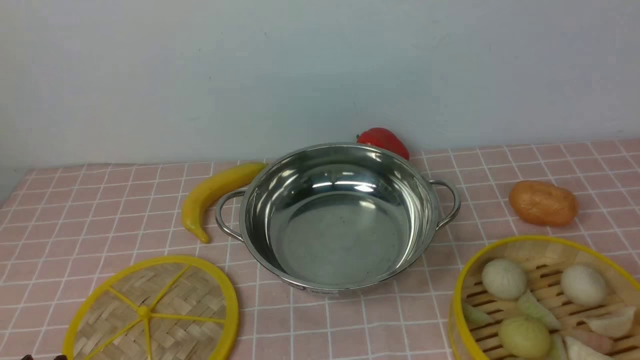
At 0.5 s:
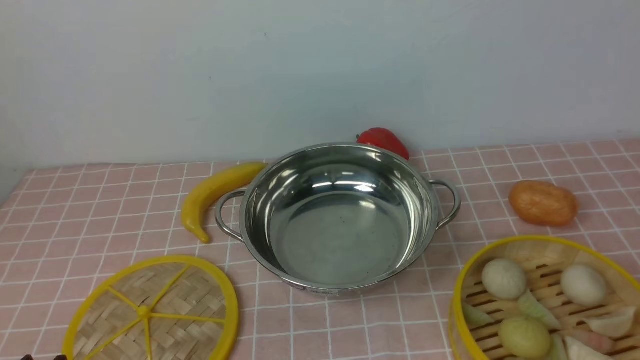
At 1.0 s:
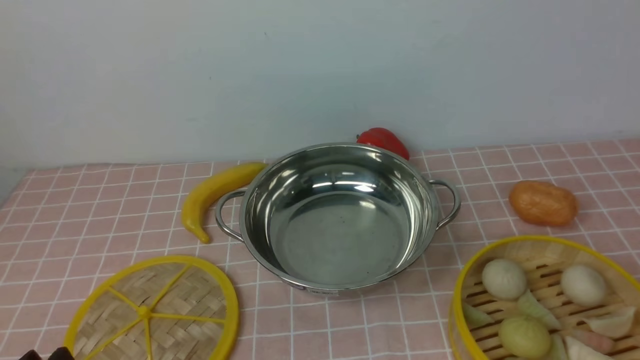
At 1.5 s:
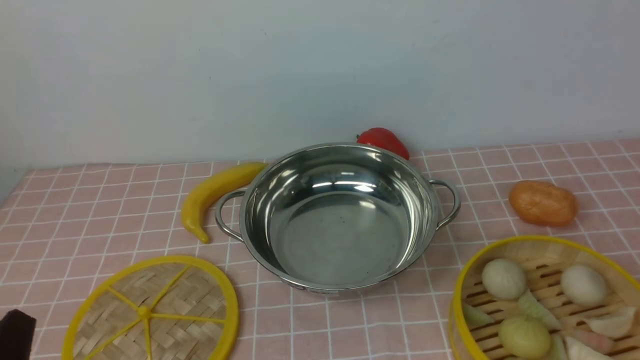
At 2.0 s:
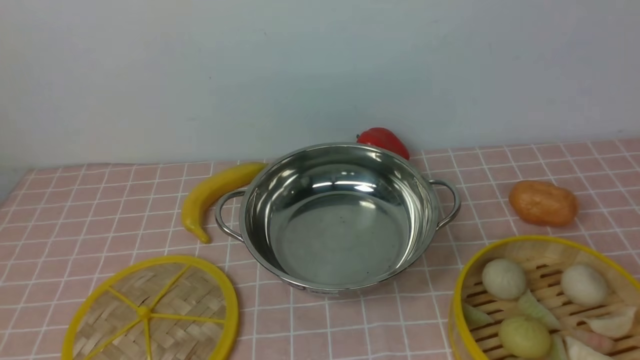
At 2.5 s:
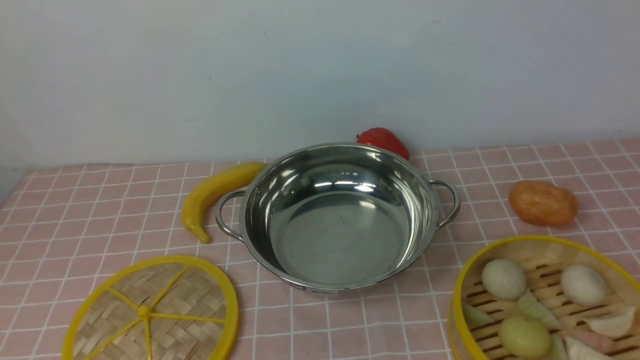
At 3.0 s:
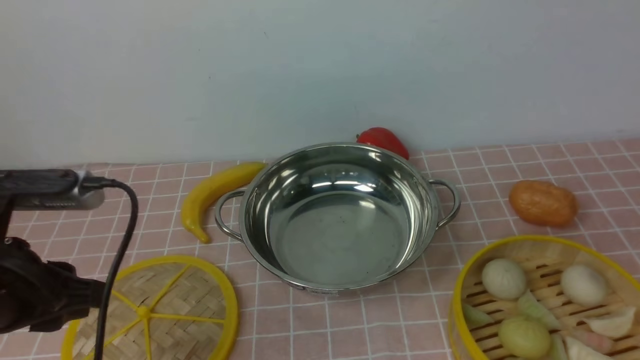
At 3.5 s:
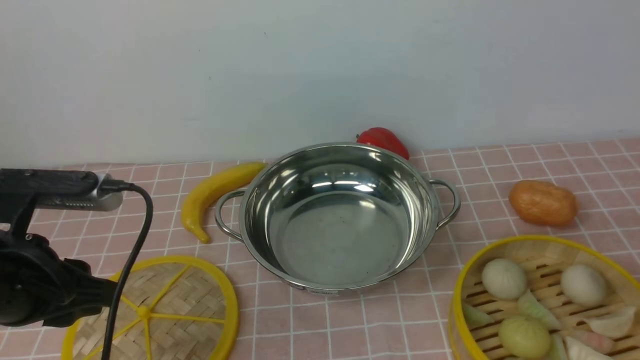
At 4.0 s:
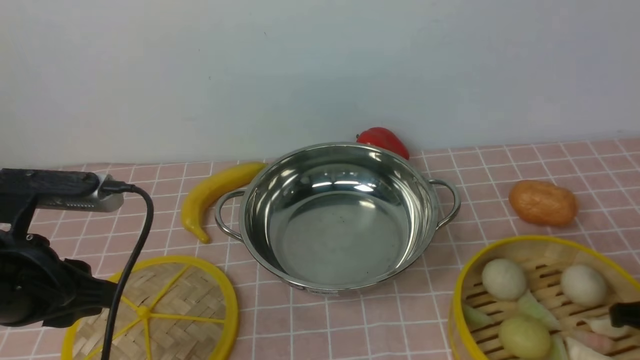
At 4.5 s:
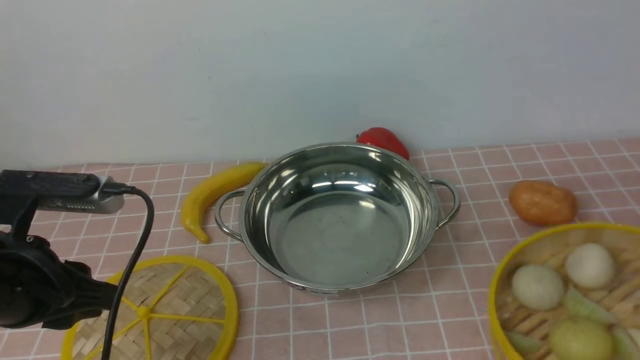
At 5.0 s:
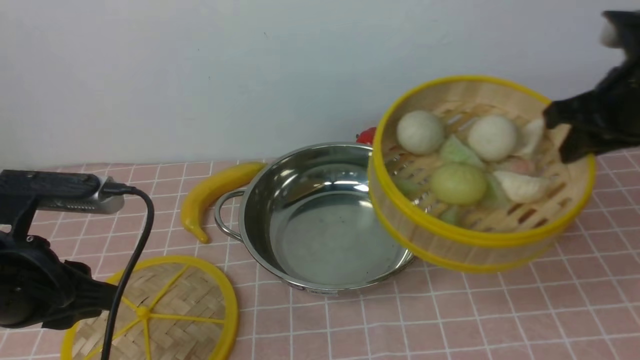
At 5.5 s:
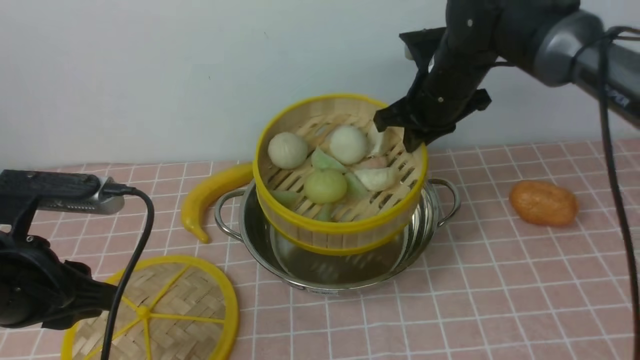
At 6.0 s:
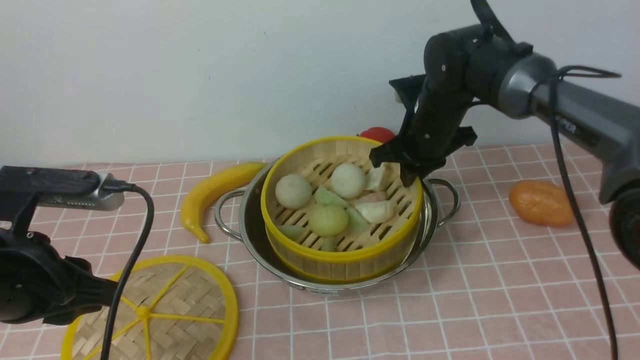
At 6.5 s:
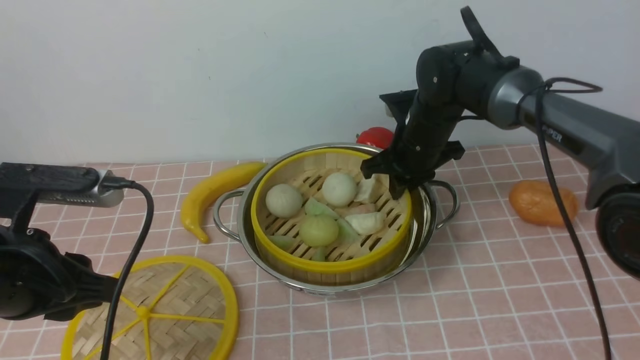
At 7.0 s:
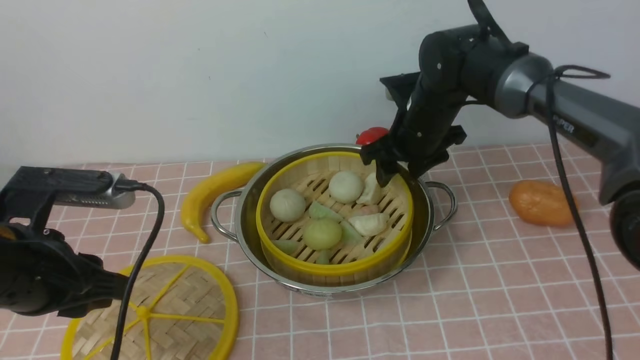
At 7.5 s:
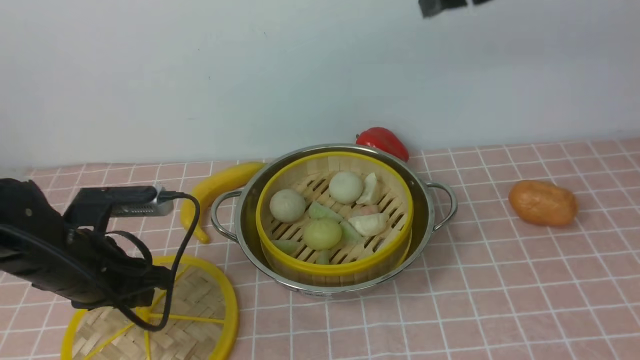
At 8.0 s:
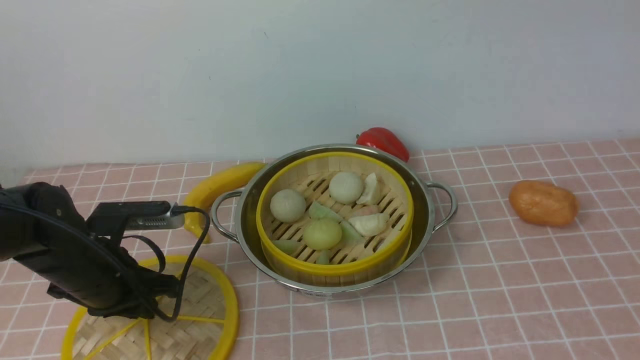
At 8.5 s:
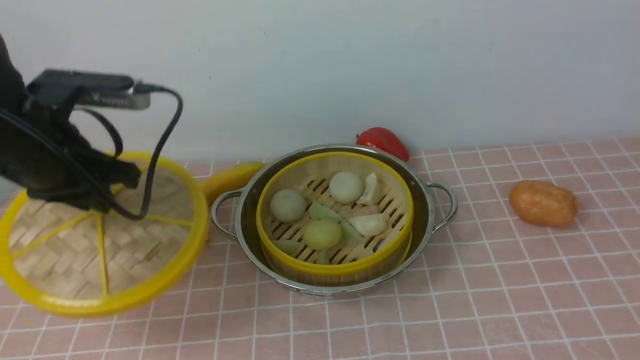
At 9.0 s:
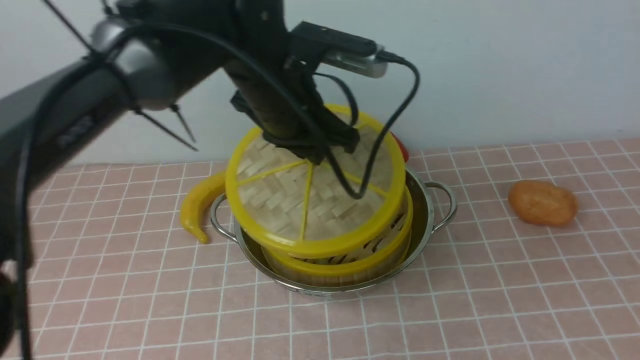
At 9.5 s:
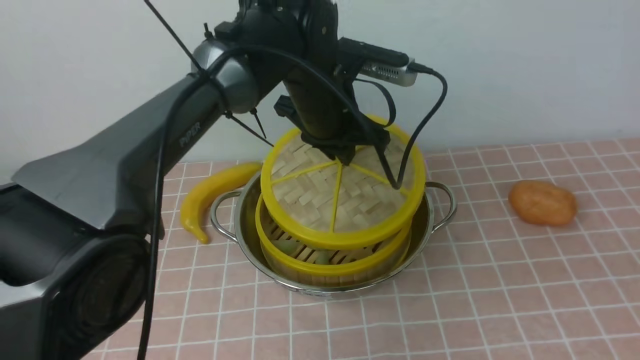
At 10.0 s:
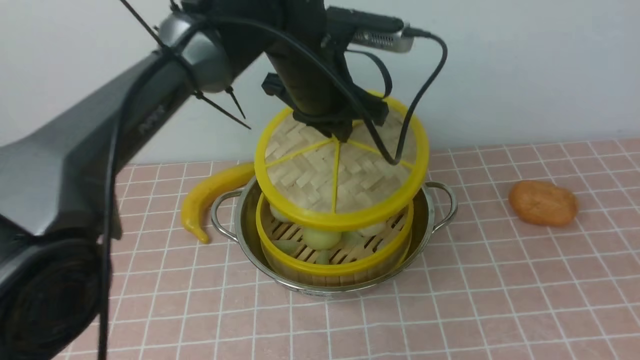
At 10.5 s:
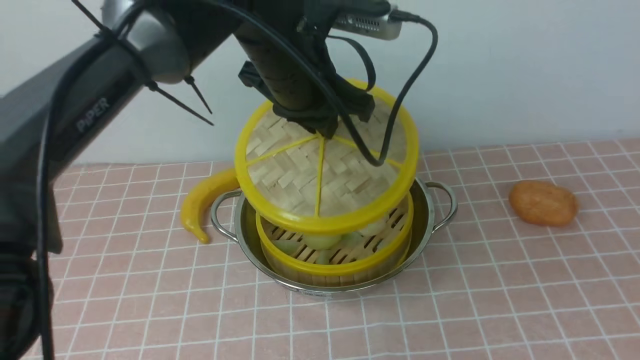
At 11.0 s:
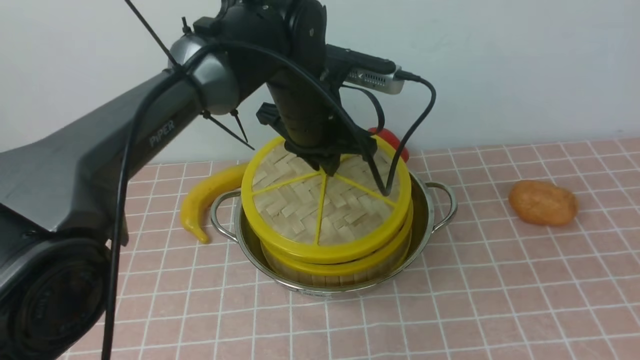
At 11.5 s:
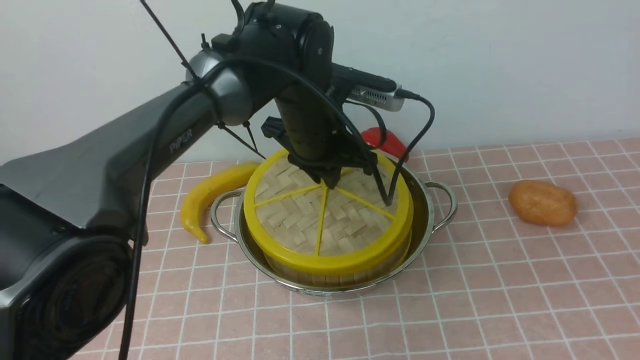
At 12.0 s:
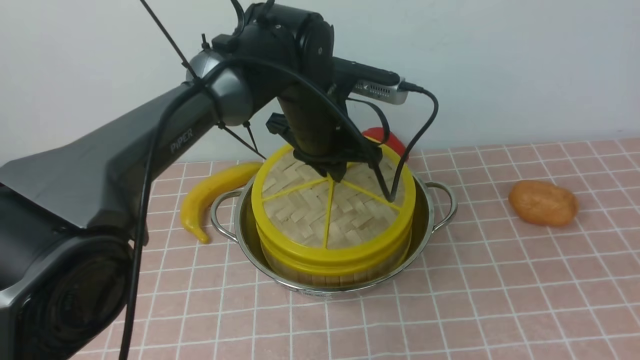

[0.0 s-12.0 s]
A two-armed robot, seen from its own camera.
Task of the whole recording: place the steamer in the pot on the pink tablecloth, and put the lid on the steamer.
Step, 0.0 to 4.0 s: use the right arm to lift the steamer closest to it.
Step, 4.5 to 7.0 s: use the right arm to put the steamer into the iron steamer pot in the middle.
Step, 7.5 to 8.0 s: use the left arm to lift the lid of the steamer.
2.0 to 4.0 s: The left gripper goes approximately 15 cm forward.
4.0 to 6.0 s: The right gripper goes about 30 cm forward and to the left.
6.0 to 8.0 s: The right gripper shifts approximately 40 cm upward and backward, and opens its fingers; the left gripper goes about 15 cm downward and forward.
8.0 to 10.0 s: The left gripper travels to the right, upward and forward by about 30 cm; the right gripper shifts some 30 cm downward, backward and to the right.
10.0 to 12.0 s: The left gripper heads downward, covering about 5 cm.

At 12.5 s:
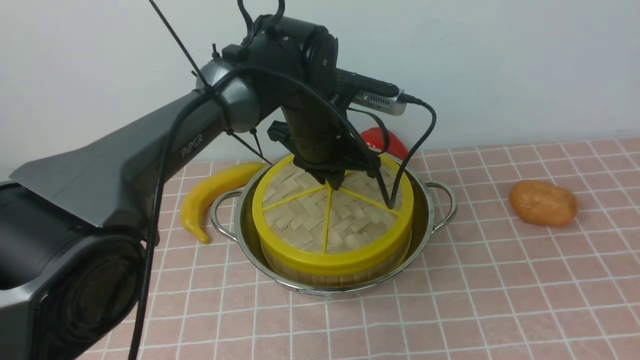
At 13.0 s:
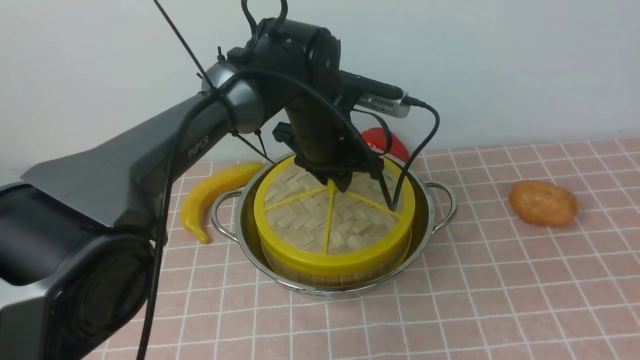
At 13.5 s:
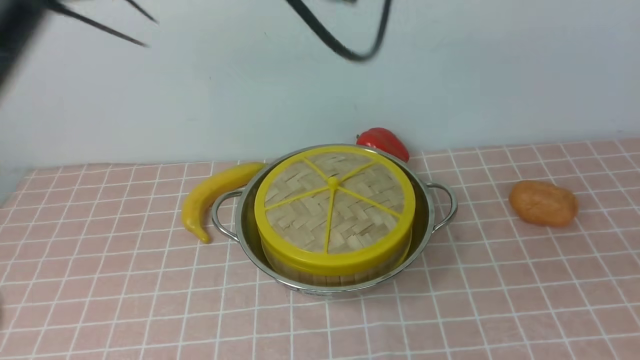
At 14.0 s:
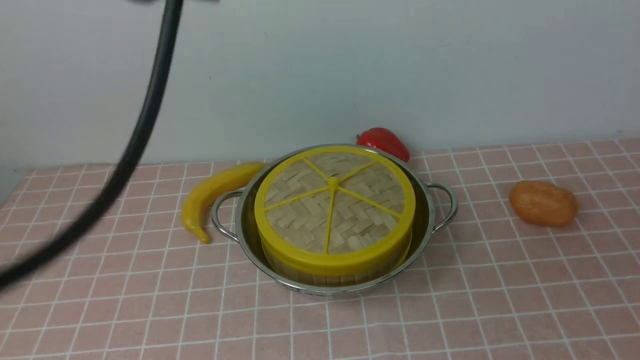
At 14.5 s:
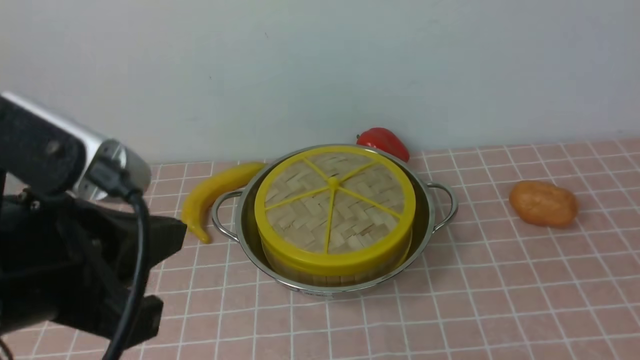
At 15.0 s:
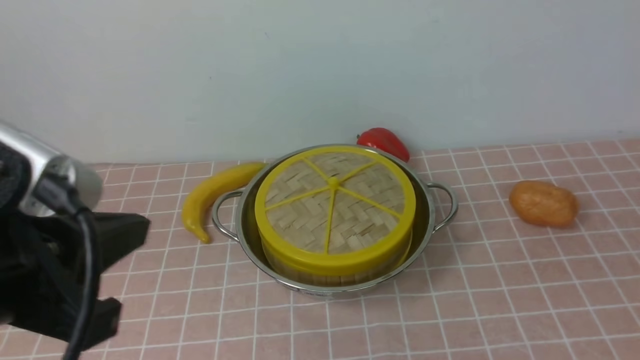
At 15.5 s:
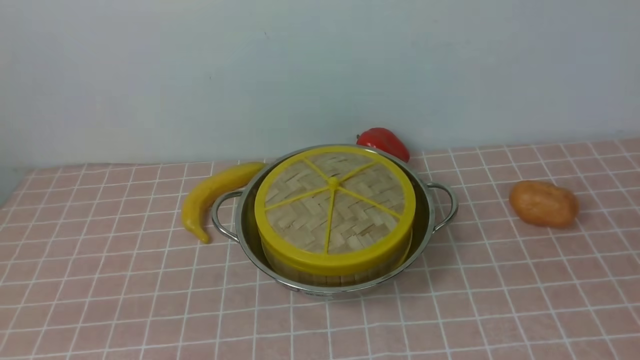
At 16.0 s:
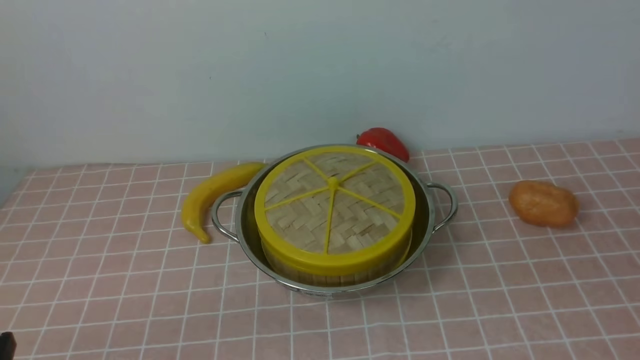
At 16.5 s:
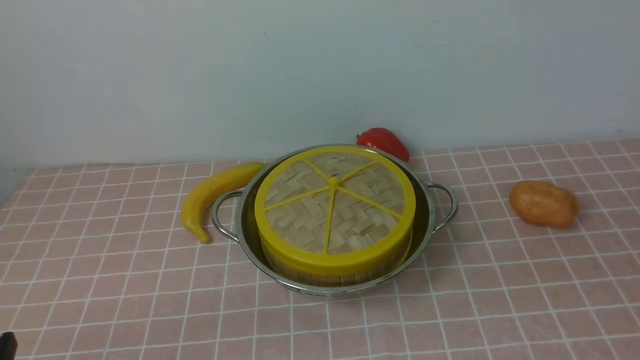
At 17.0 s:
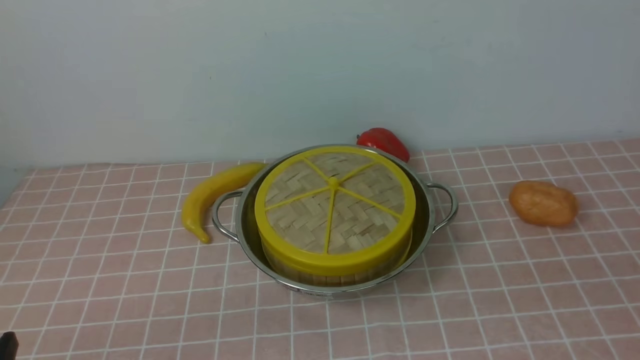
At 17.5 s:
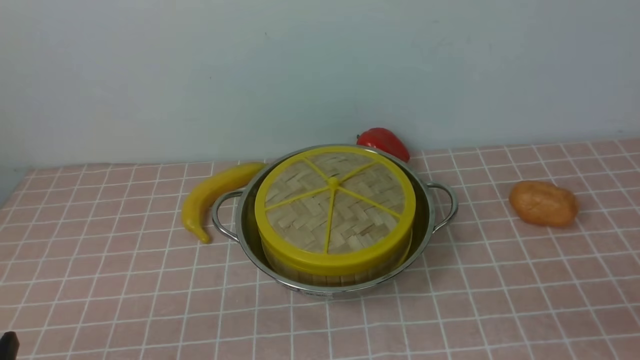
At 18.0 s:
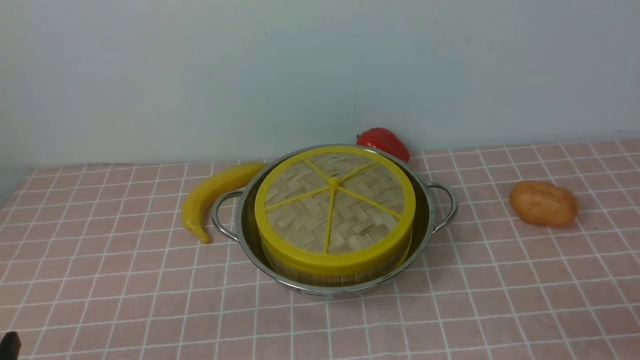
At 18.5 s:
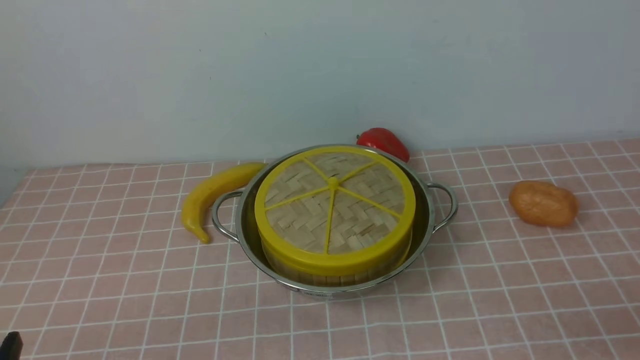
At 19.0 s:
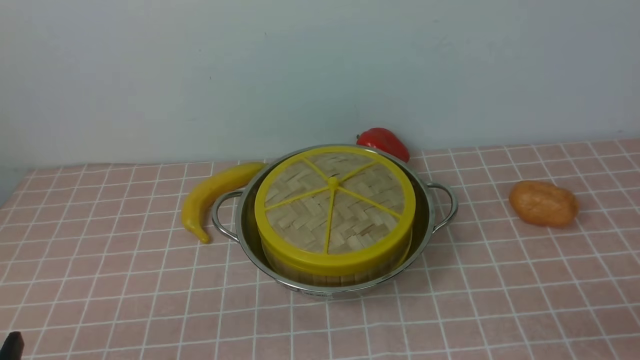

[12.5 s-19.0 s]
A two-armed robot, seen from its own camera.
Task of the whole recording: place the steamer in the pot on the pink tablecloth, and put the lid on the steamer.
12.5 to 14.5 s: The left gripper heads backward, to the left and upward, covering approximately 35 cm, and opens and closes again; the right gripper closes up.
14.5 to 17.0 s: The left gripper shifts approximately 25 cm downward, to the left and backward.

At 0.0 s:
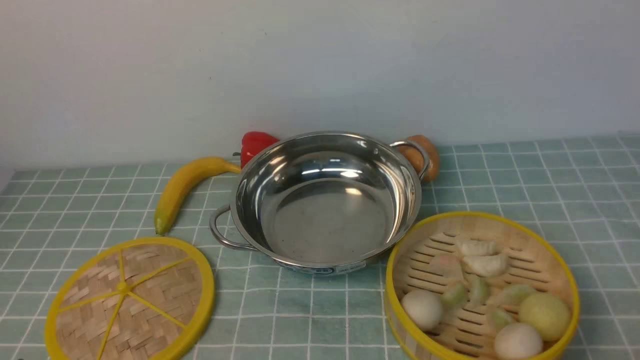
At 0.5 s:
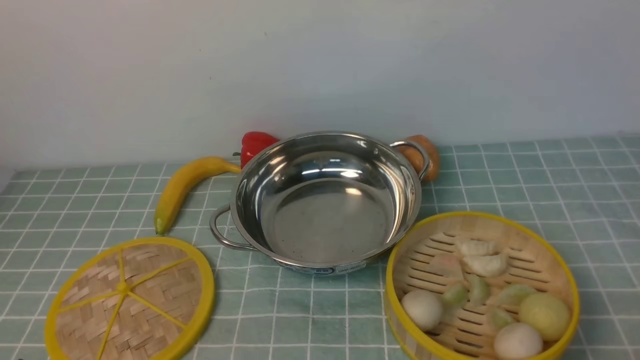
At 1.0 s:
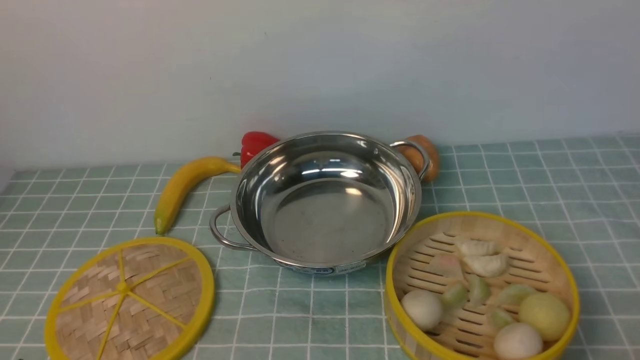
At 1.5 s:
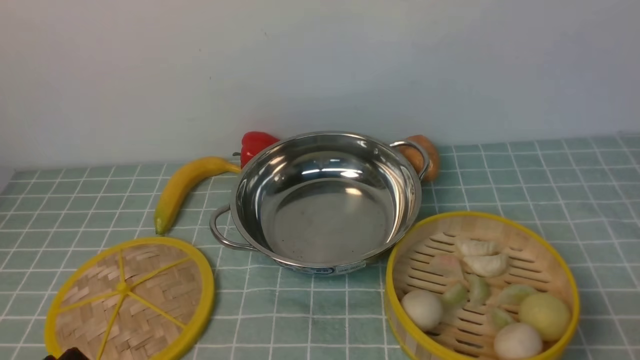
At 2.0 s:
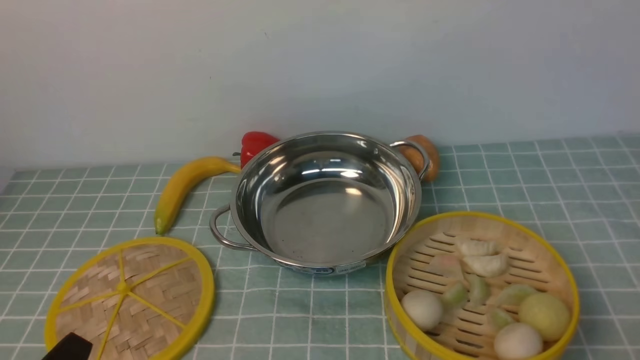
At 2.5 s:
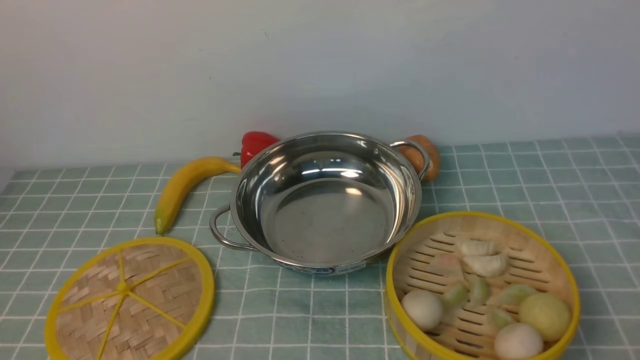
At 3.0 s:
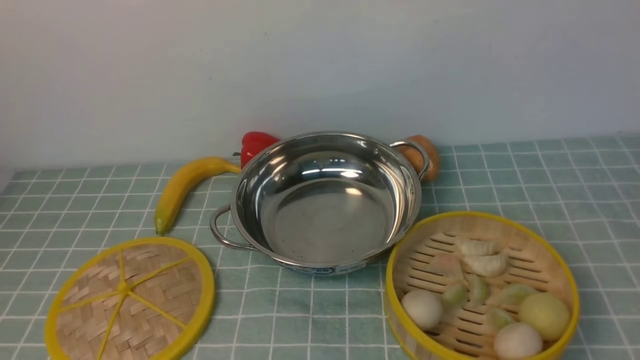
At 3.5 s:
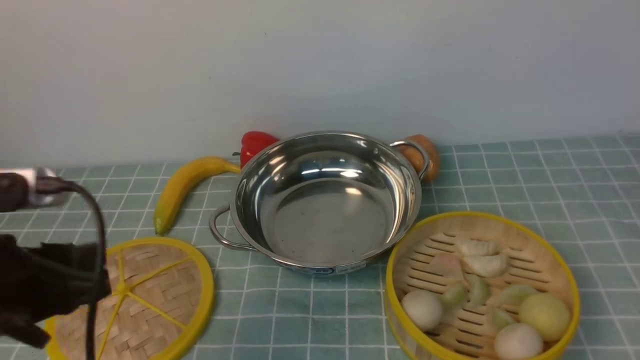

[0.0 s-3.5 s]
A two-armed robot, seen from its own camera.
Task of the whole recording: place the steamer in the pot on the blue tablecloth, and put the lid on the steamer.
2.0 to 3.5 s: The right gripper travels upward and forward by some 20 cm; the left gripper shifts some 15 cm forward and upward.
